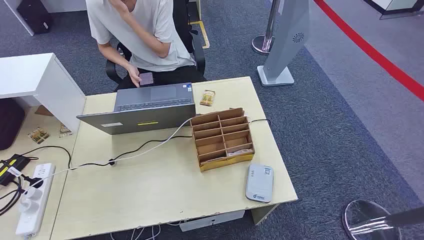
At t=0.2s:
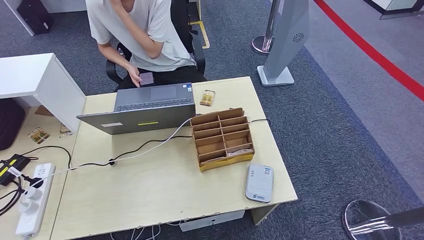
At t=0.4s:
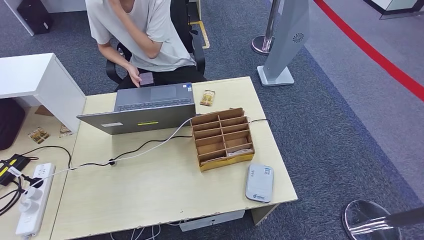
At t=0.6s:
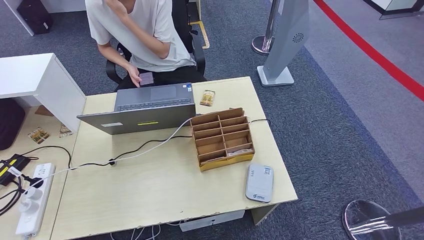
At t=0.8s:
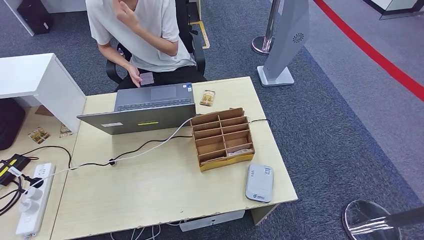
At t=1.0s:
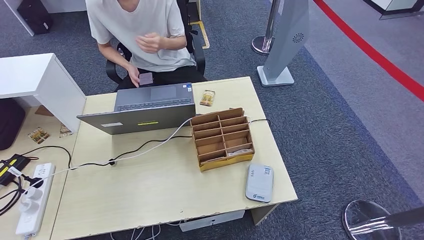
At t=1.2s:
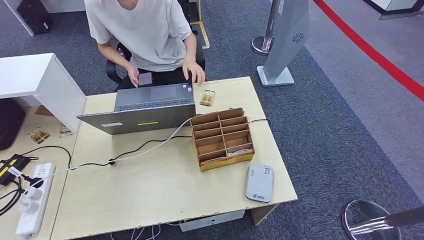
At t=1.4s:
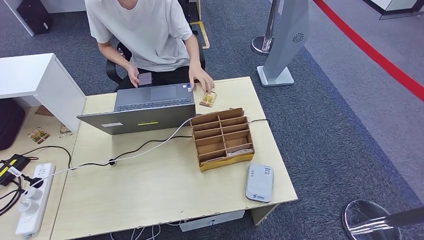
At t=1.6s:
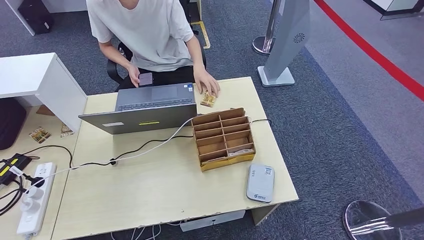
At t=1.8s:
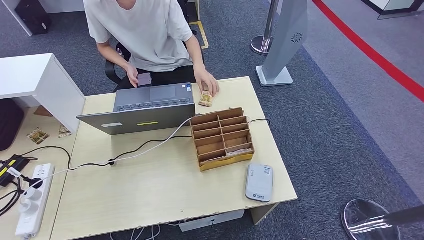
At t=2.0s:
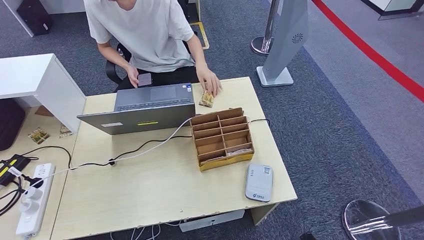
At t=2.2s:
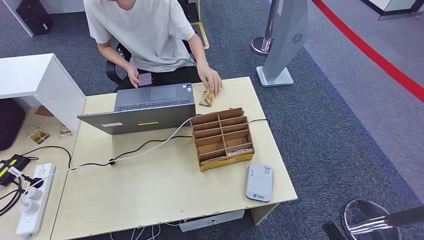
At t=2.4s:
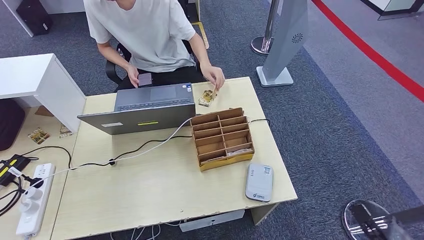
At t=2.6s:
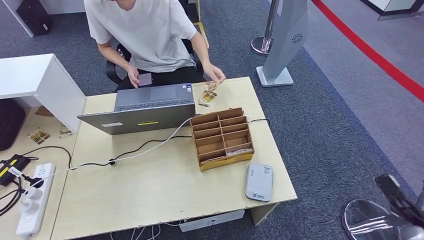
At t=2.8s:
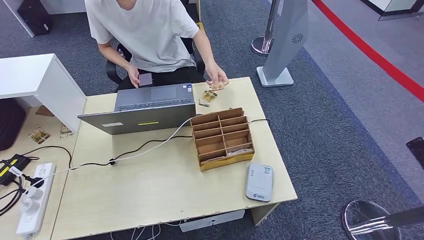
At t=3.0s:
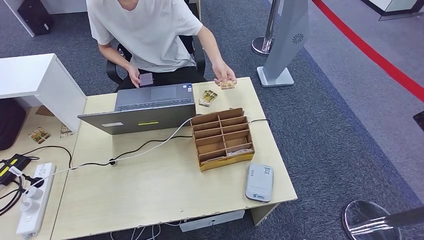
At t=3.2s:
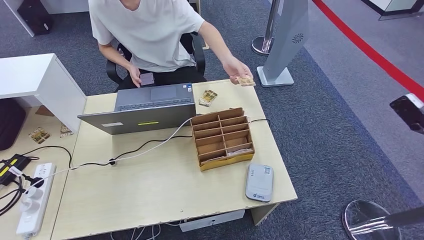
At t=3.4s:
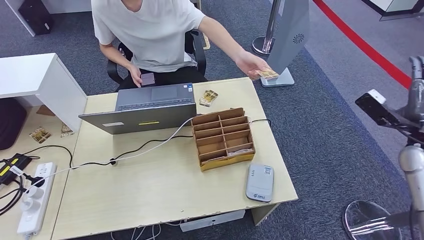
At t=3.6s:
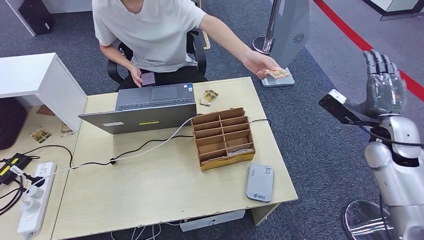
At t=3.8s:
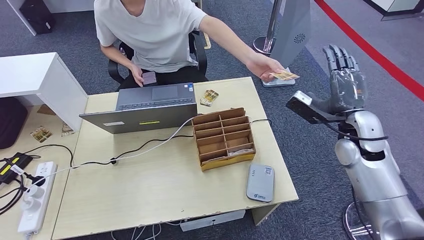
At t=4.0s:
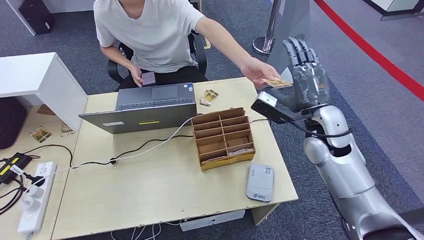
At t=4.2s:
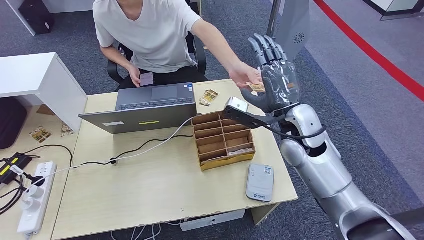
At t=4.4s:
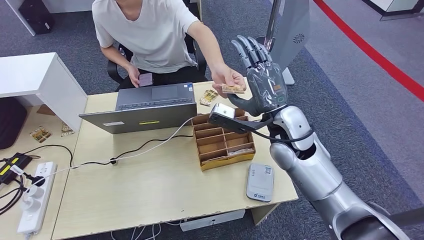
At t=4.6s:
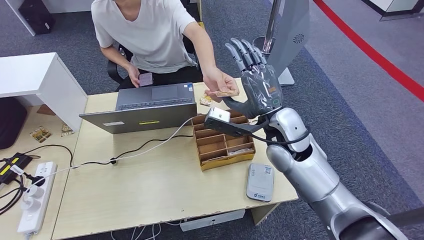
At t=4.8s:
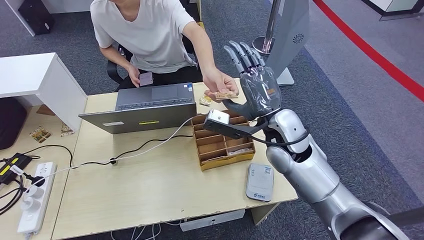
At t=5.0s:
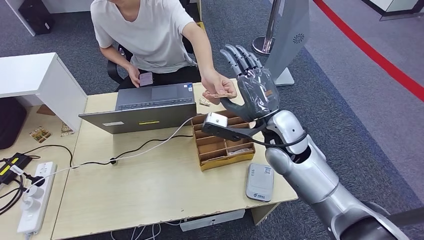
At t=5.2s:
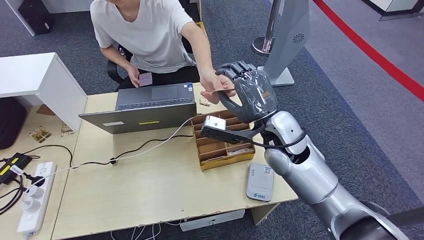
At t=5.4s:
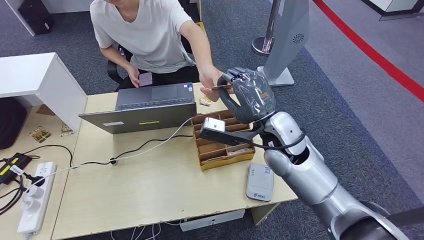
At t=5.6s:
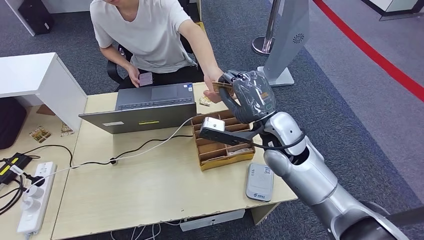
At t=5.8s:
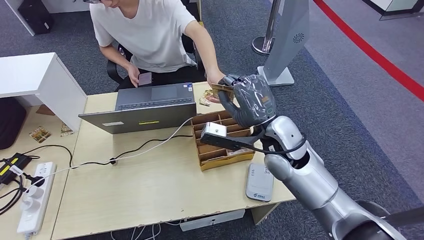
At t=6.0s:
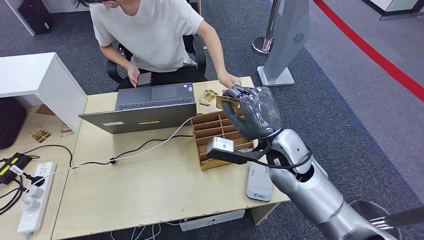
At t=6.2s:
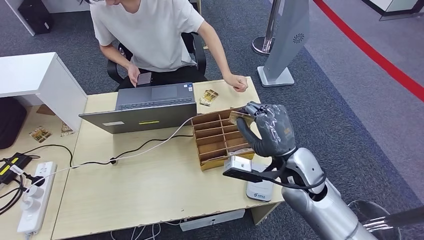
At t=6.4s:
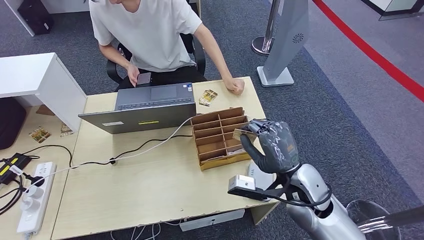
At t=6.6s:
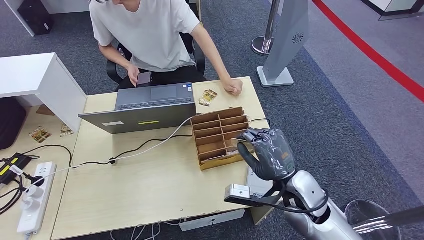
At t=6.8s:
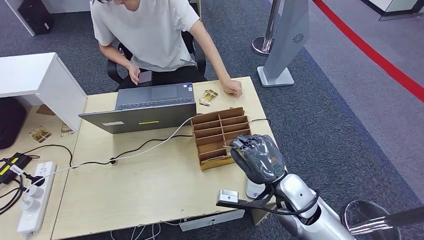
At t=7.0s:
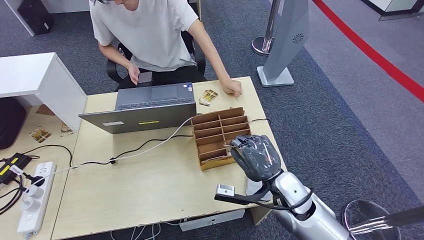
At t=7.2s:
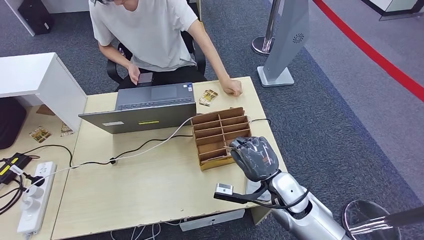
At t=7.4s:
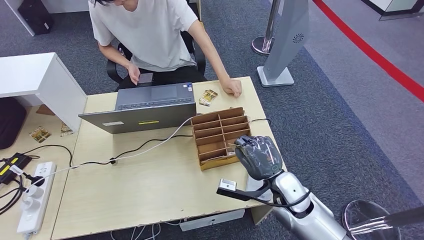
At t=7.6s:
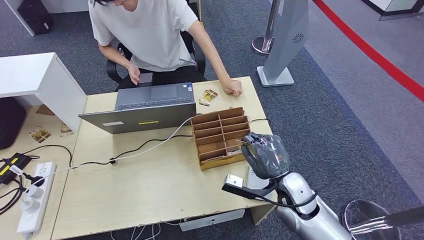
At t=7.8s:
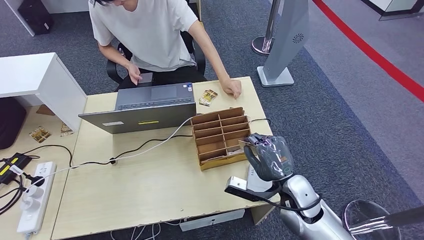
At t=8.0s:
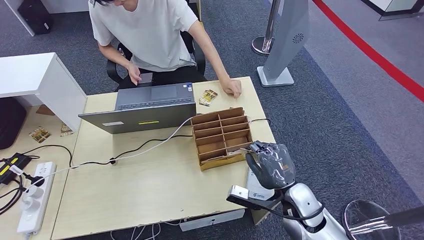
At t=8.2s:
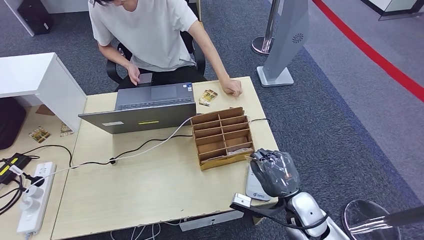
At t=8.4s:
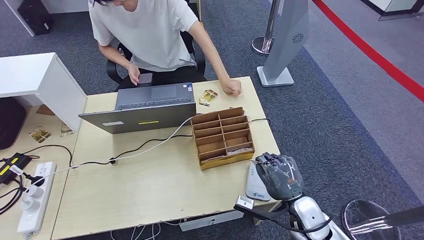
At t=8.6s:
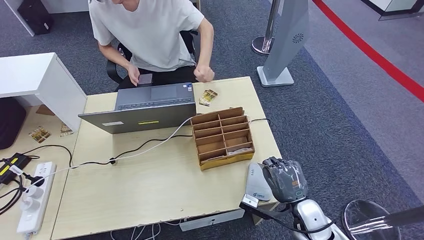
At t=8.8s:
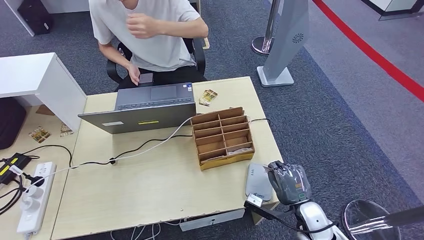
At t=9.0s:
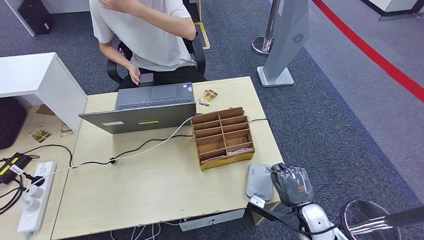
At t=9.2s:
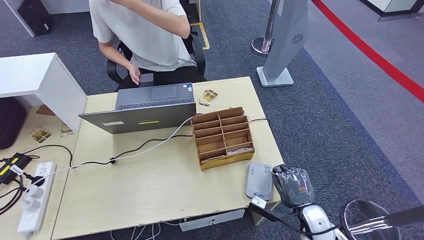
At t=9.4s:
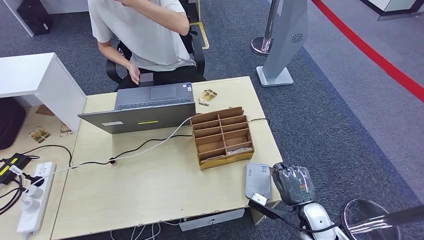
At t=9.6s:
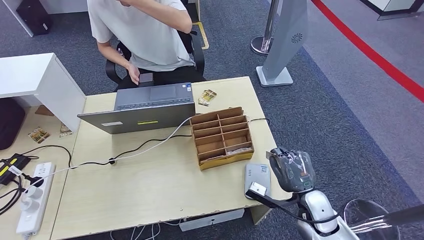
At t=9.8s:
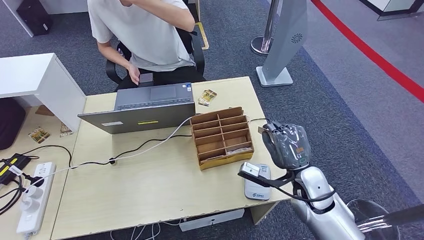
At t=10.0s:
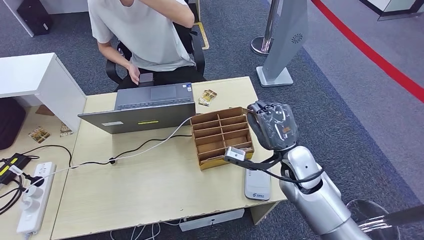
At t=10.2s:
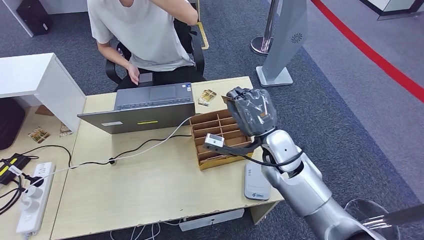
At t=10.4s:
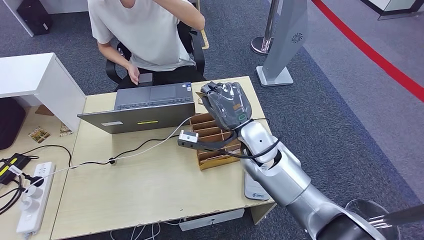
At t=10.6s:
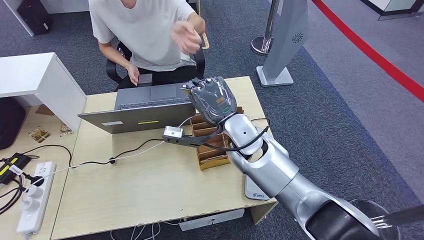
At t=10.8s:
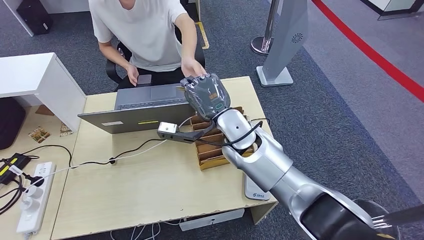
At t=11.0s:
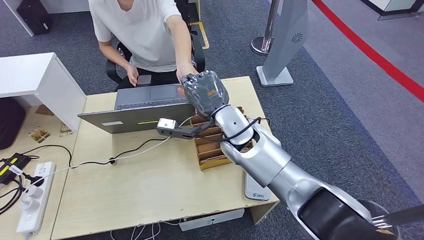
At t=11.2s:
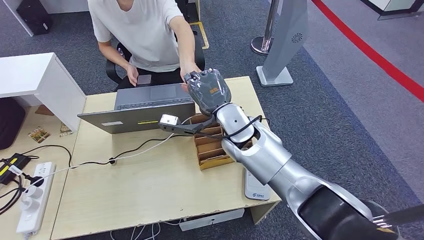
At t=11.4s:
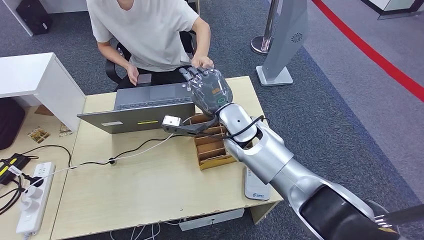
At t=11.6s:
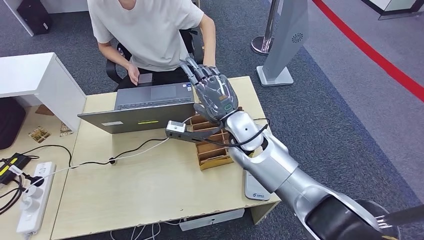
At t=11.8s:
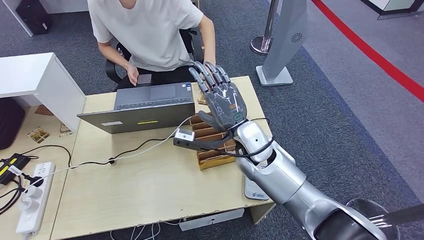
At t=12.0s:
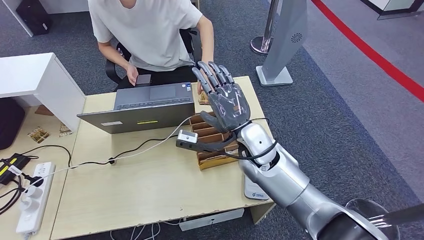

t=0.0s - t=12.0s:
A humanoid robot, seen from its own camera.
Step, t=0.0s - t=5.4s: Take the ID card from the person's hand.
Step, t=5.8s - t=9.8s: Place the ID card on the card reader.
Step, t=10.0s - t=11.6s: Hand the ID card to the person.
t=1.6s - t=3.0s: The right hand shifts approximately 50 cm to the right, upward and forward.
t=3.0s - t=4.4s: The right hand moves to the left, roughly 40 cm.
t=4.4s - t=6.0s: The right hand changes place by approximately 5 cm.
t=6.0s - t=7.6s: The right hand shifts about 15 cm downward and backward.
t=7.6s - t=9.0s: The right hand travels downward, backward and to the right by roughly 15 cm.
t=9.0s - t=10.4s: The right hand moves upward, forward and to the left, some 30 cm.

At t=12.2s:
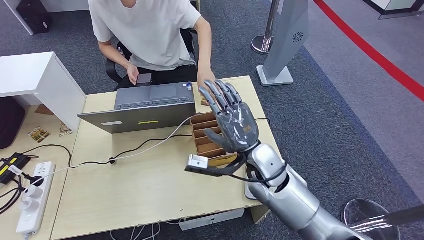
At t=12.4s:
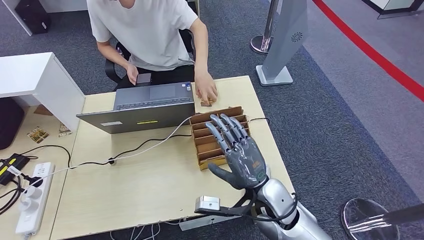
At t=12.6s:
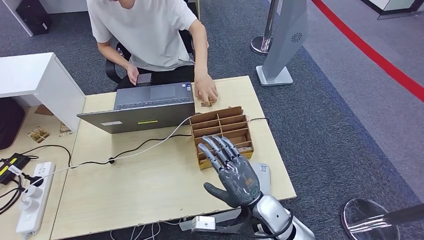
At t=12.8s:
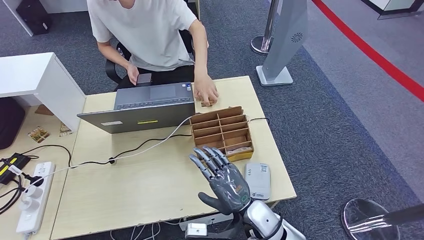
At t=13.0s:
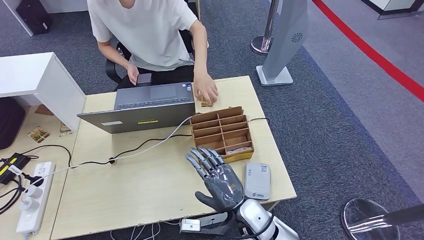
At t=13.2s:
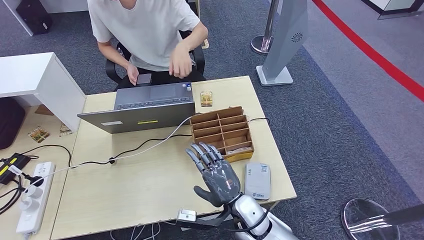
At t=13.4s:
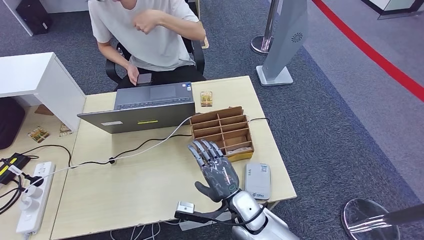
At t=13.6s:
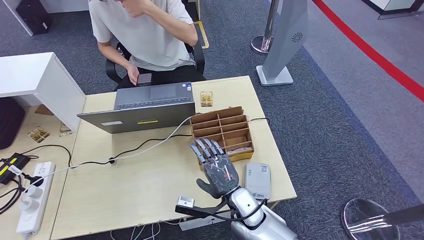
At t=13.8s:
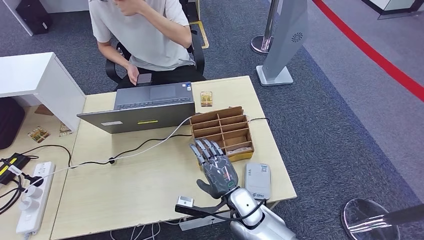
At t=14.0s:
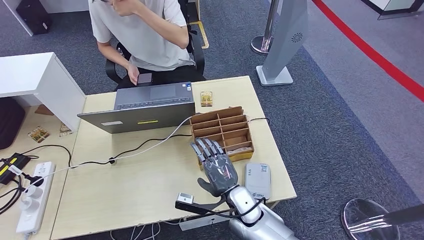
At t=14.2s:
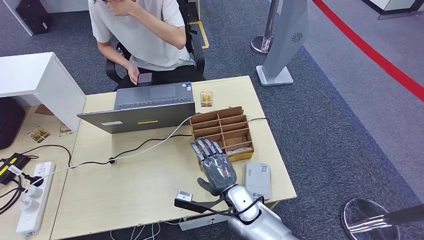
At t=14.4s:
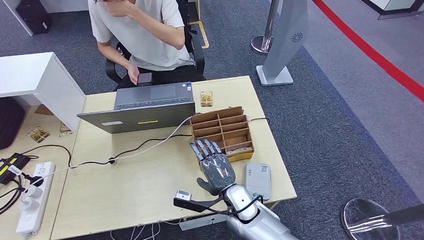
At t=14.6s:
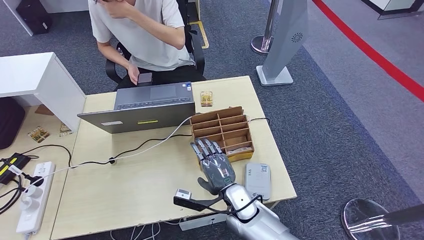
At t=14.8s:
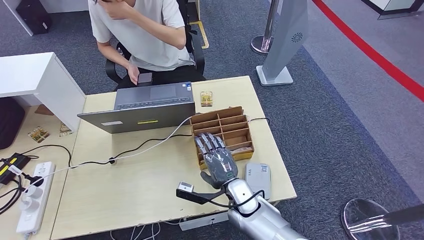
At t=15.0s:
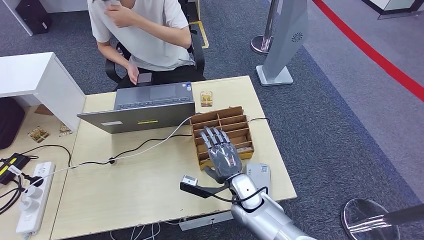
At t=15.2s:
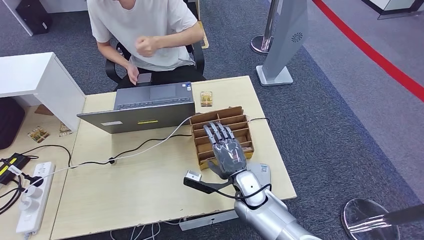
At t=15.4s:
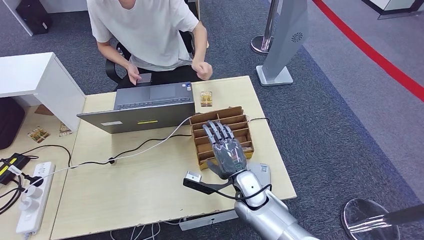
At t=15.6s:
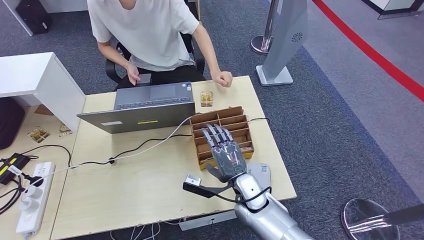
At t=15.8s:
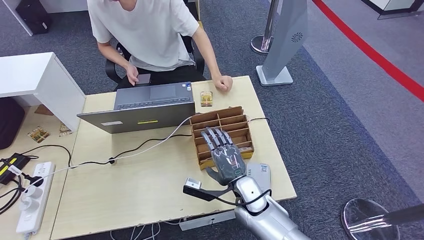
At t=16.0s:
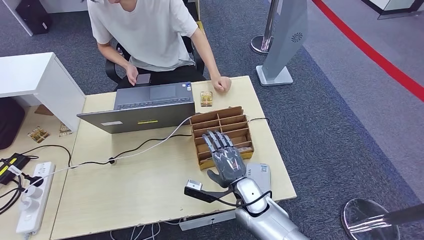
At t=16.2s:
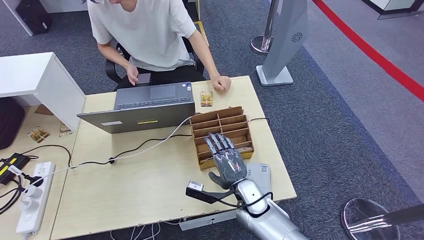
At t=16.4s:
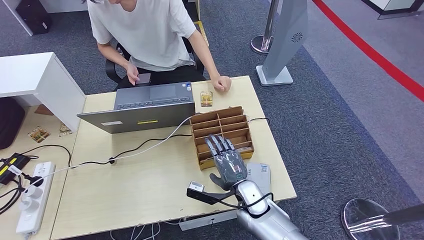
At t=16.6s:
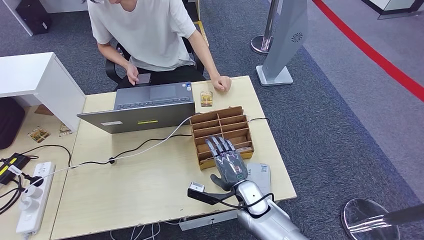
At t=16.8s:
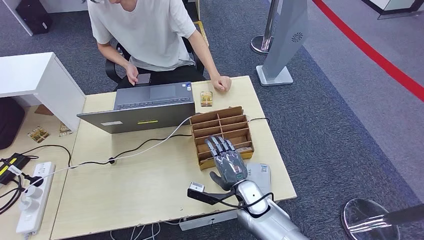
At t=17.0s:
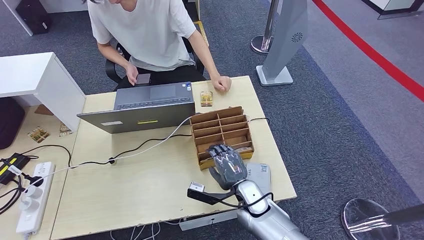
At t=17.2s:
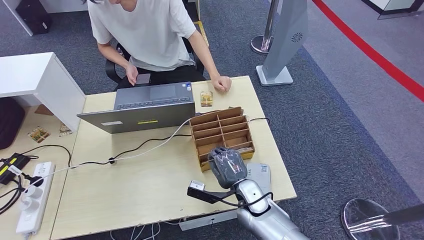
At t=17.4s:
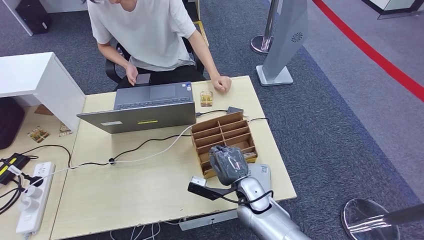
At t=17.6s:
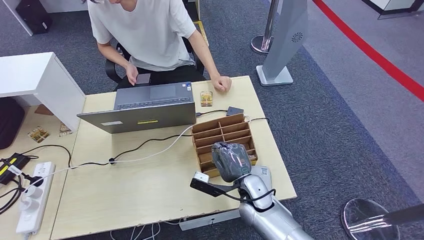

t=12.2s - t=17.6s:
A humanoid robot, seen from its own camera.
t=12.2s - t=13.6s: The right hand travels downward and backward by approximately 15 cm.
t=13.6s - t=17.6s: There are only small adjustments of the hands.
